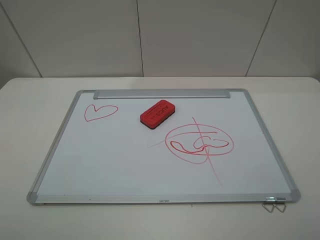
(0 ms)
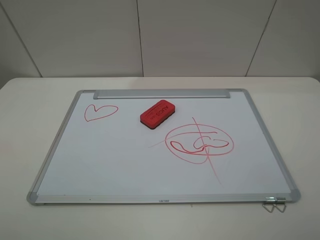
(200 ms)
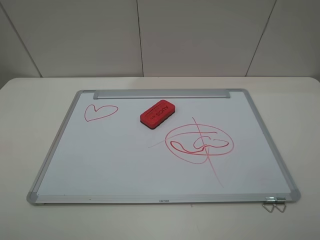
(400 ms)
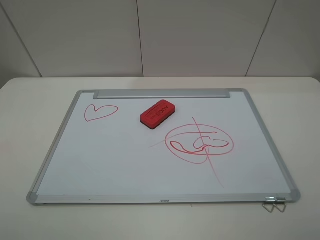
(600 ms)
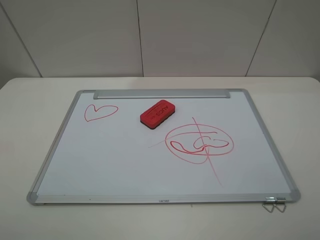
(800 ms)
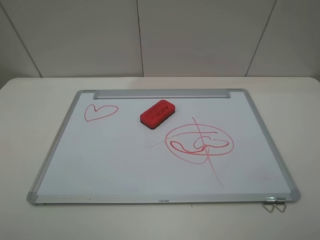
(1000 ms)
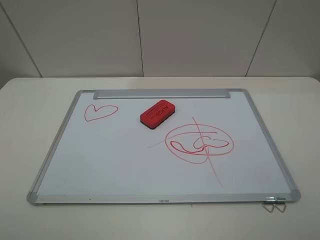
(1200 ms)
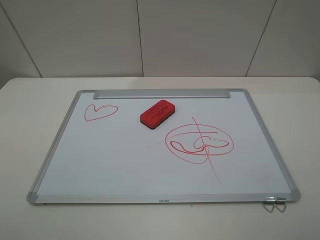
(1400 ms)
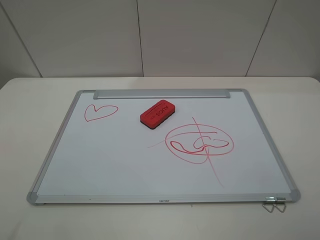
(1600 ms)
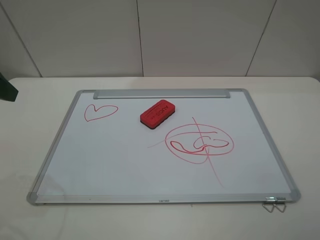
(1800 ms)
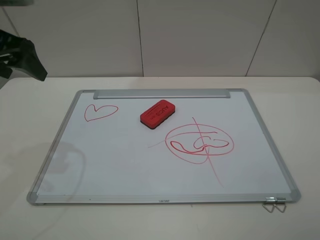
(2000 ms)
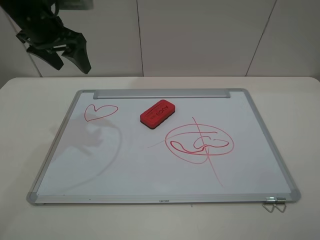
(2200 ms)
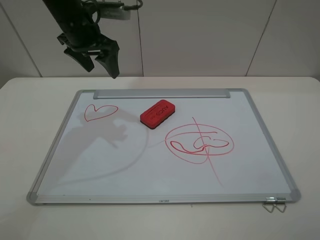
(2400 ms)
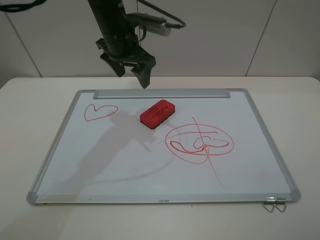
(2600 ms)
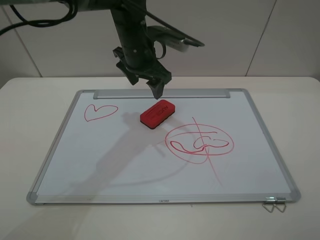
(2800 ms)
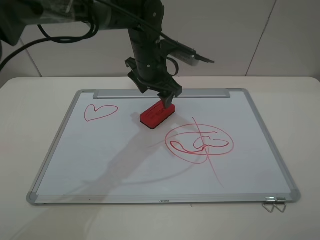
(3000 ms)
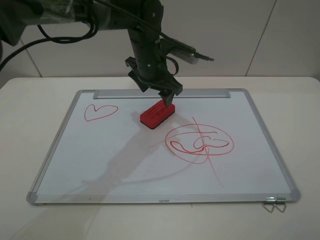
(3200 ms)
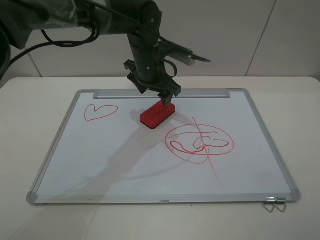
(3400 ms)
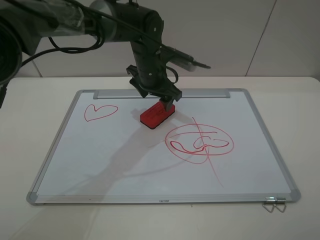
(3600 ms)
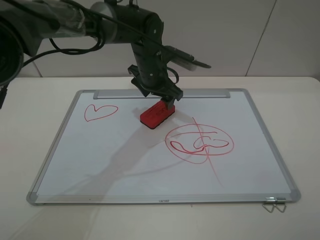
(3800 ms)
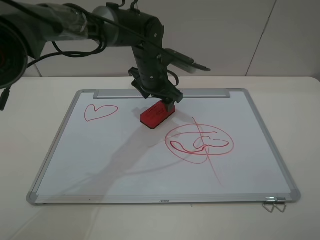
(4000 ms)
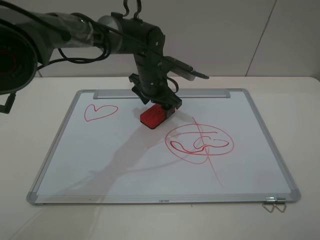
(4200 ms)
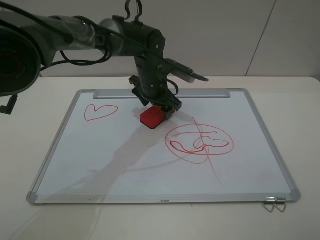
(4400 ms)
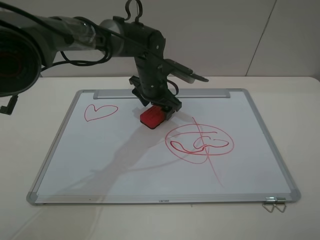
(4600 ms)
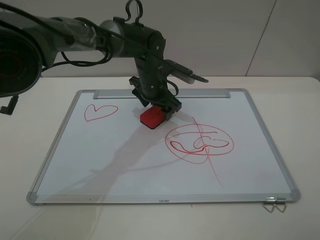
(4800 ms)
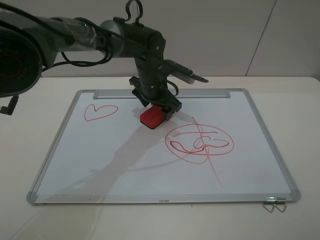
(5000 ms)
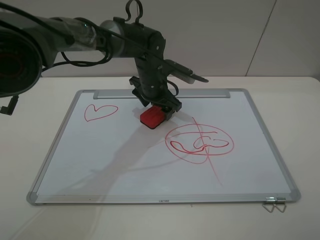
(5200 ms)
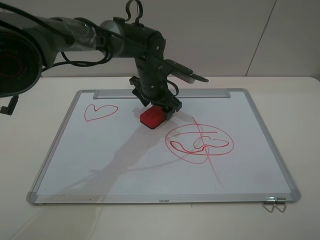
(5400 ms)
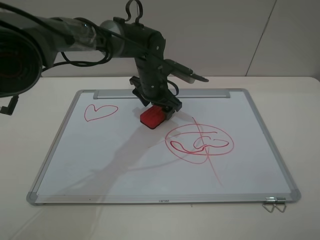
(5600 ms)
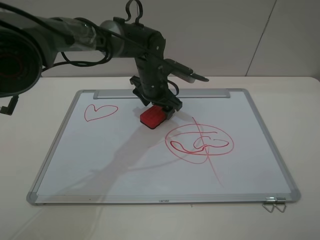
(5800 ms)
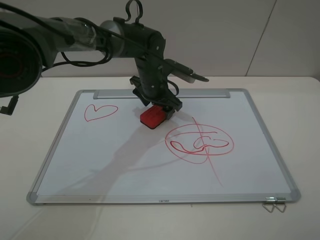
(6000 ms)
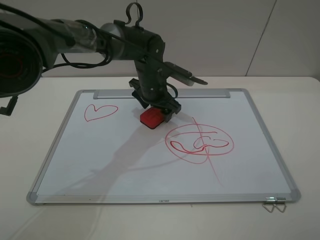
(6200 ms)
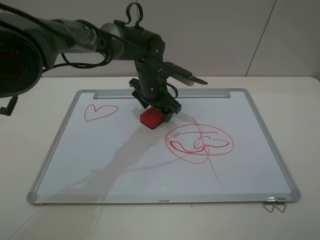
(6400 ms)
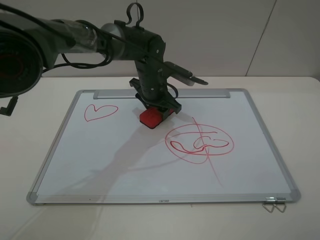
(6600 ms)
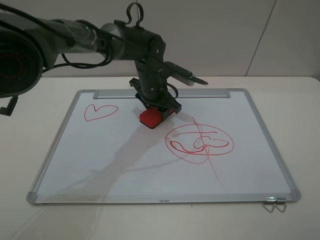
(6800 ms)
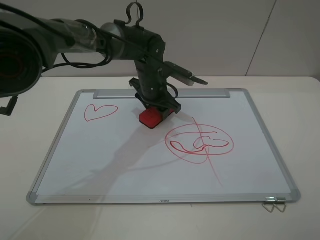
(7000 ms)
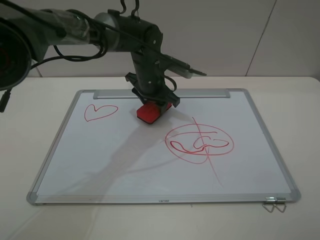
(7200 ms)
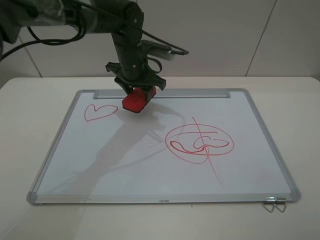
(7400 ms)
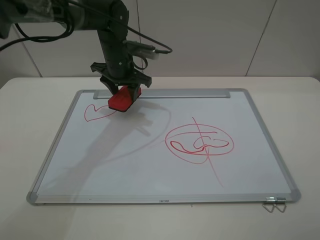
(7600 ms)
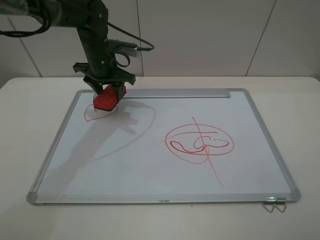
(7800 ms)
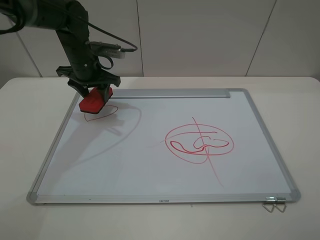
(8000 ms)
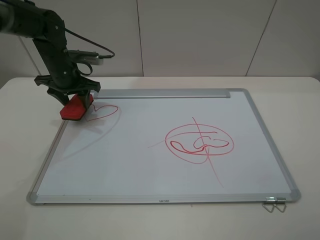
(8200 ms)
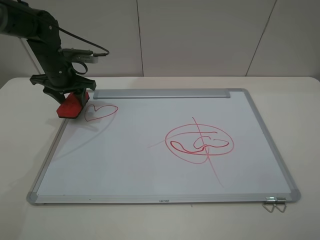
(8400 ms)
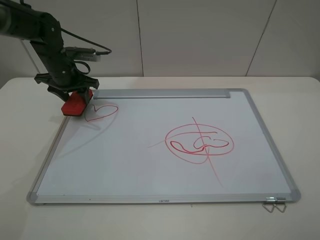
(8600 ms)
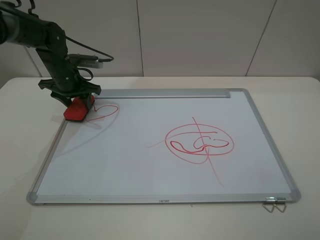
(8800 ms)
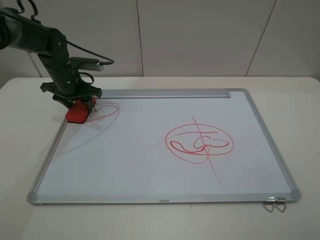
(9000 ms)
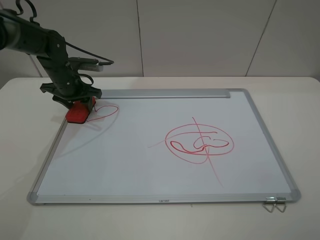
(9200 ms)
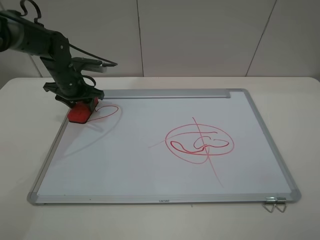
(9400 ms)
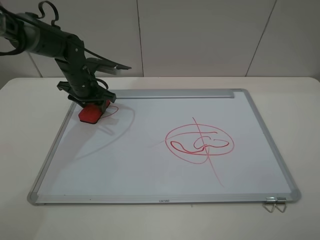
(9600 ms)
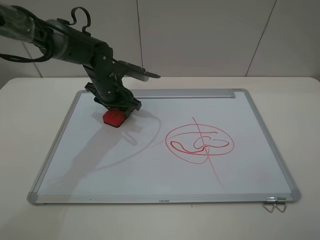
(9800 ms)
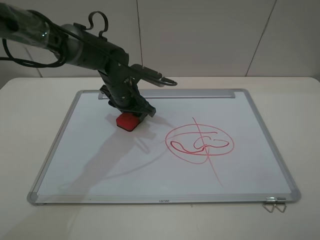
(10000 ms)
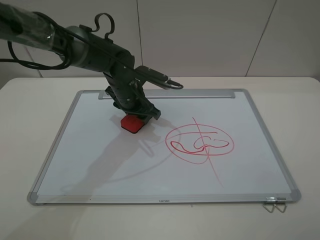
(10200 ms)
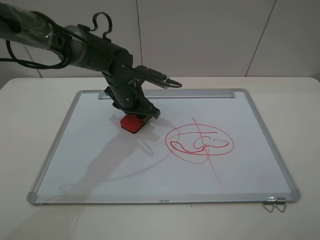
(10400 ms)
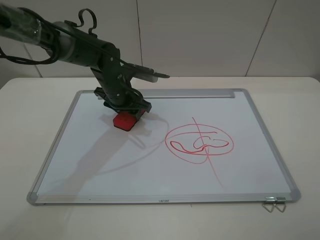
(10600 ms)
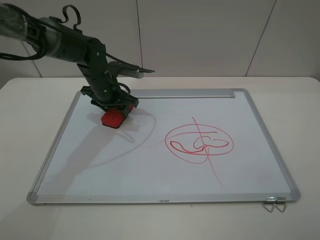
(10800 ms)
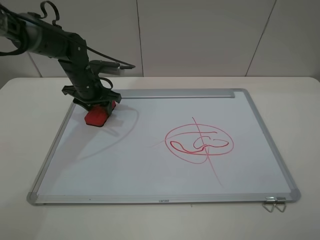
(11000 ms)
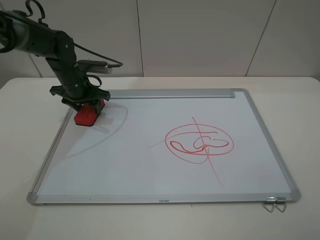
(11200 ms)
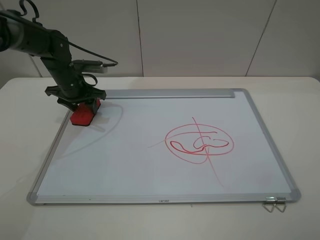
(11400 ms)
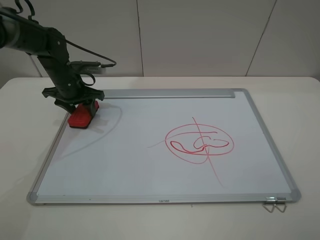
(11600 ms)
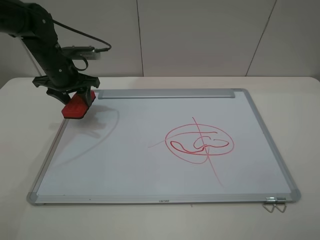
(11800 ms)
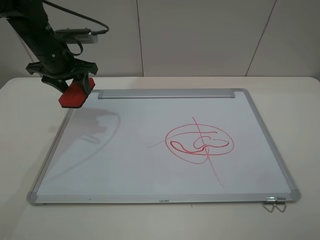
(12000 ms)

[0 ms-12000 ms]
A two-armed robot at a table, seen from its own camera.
Step, 0 ms to 6600 ms: Grasp the eraser with the left gripper.
Step, 6800 ms to 11600 ms: Grasp the eraser and wipe the blackboard with the left gripper.
1600 ms to 3000 ms: The left gripper heads to the right, forward and downward, covering roughly 40 cm.
3000 ms to 4400 ms: The left gripper heads downward, covering approximately 5 cm.
4400 ms to 6000 ms: Both grippers stay about where they are.
6000 ms to 7600 ms: The left gripper heads to the left, covering approximately 10 cm, and closes its fingers.
7600 ms to 9000 ms: The left gripper goes roughly 15 cm to the left.
9000 ms to 10400 ms: The left gripper shifts some 15 cm to the right.
10400 ms to 12000 ms: The left gripper moves to the left and upward, approximately 20 cm.

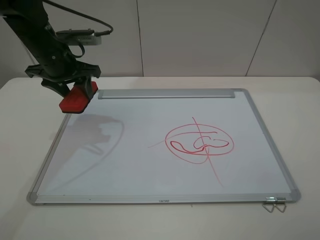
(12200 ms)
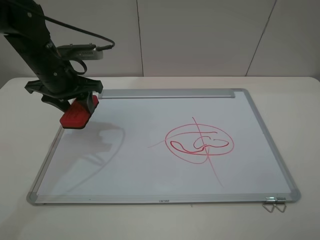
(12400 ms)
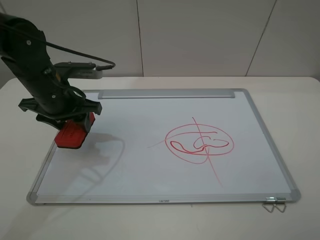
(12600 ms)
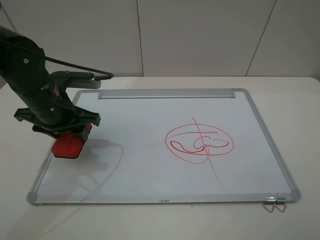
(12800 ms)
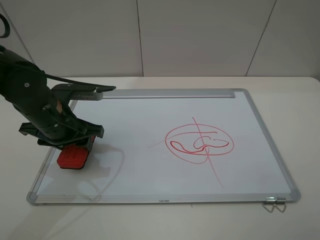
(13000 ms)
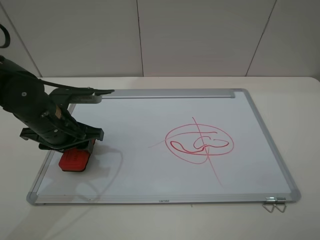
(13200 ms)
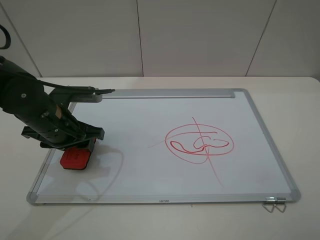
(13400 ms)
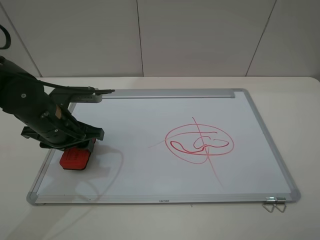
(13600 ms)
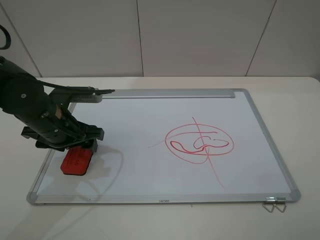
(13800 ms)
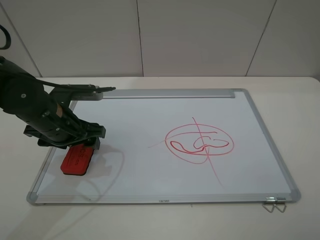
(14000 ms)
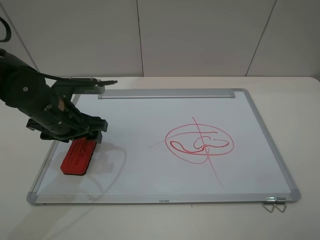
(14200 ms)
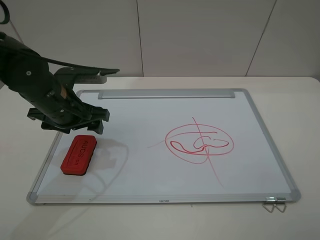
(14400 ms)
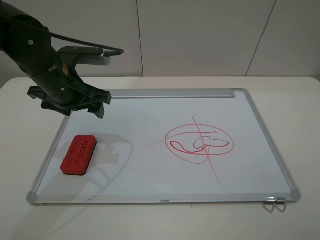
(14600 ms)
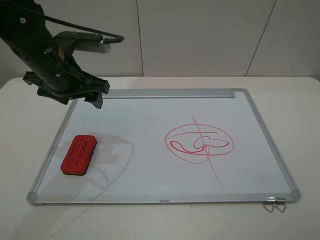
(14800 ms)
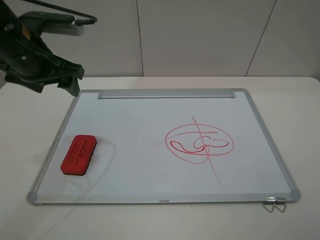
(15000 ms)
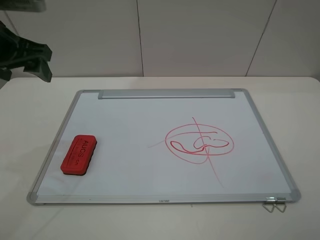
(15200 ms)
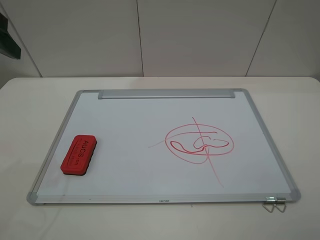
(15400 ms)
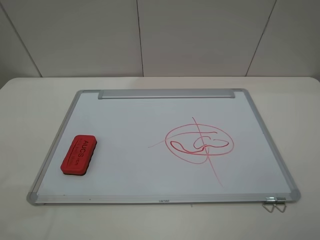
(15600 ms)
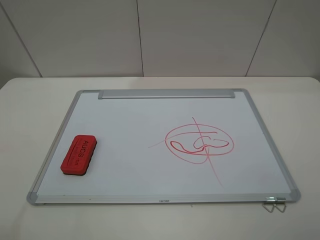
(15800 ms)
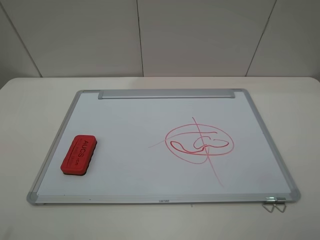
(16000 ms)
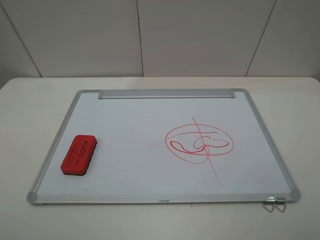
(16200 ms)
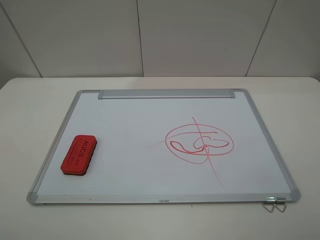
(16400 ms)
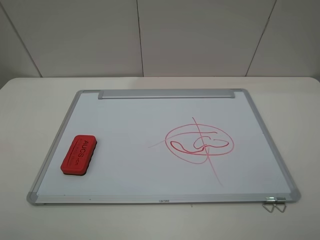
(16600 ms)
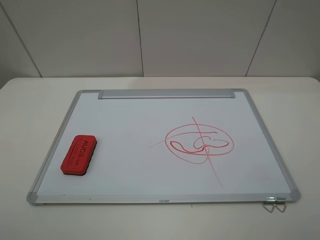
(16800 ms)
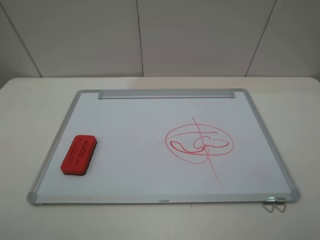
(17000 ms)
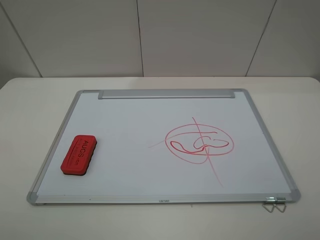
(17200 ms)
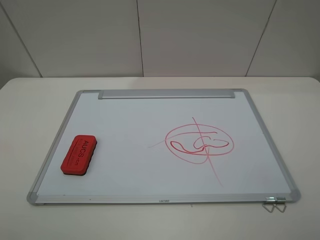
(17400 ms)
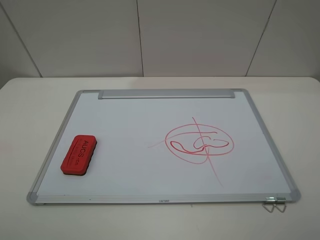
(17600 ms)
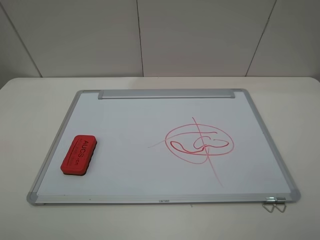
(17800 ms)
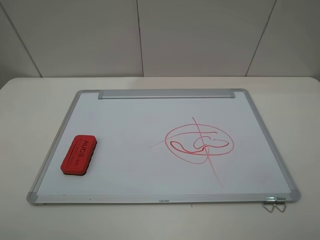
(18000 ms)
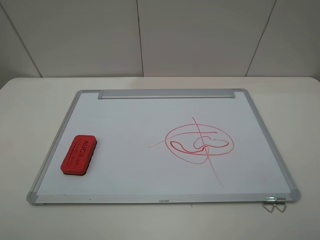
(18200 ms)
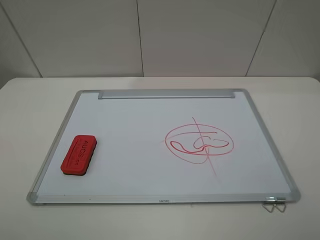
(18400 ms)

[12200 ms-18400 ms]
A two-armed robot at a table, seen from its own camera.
Step, 12200 ms to 14200 ms: Place the eraser with the left gripper.
12200 ms to 13800 ms: The left gripper moves backward and downward, some 15 cm, and opens.
13800 ms to 15400 ms: The left gripper travels upward and to the left by some 25 cm.
15400 ms to 16800 ms: The left gripper is displaced backward by roughly 20 cm.

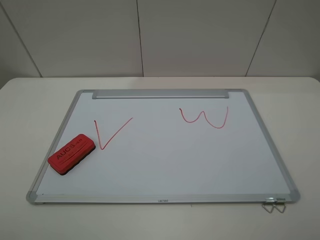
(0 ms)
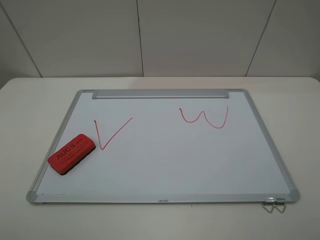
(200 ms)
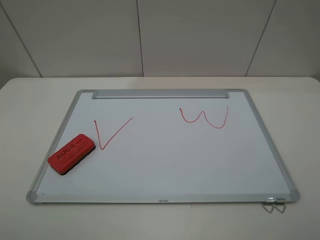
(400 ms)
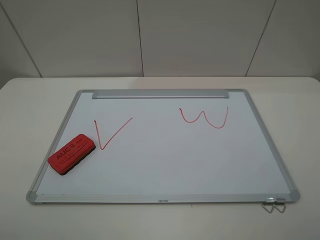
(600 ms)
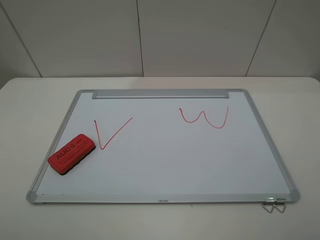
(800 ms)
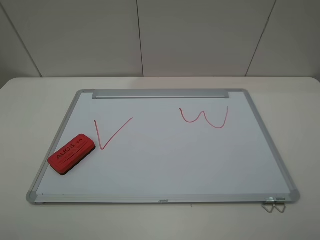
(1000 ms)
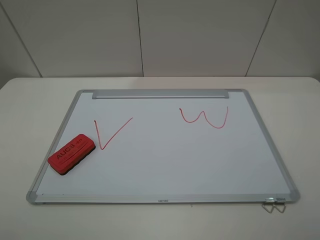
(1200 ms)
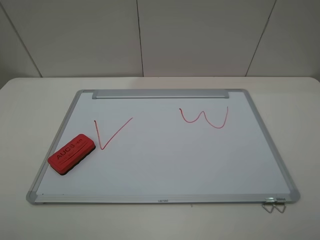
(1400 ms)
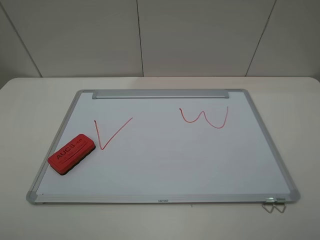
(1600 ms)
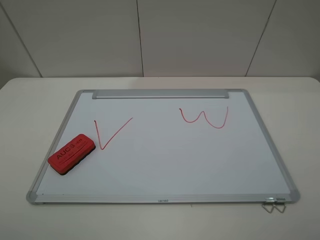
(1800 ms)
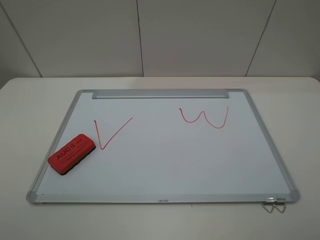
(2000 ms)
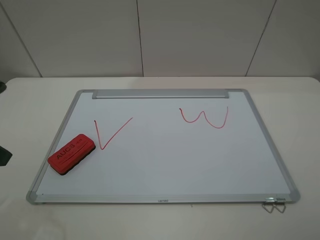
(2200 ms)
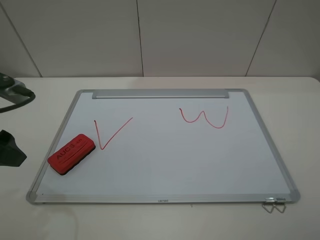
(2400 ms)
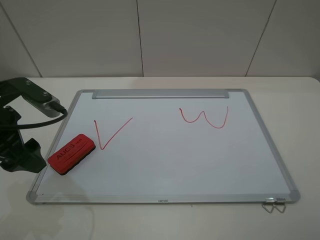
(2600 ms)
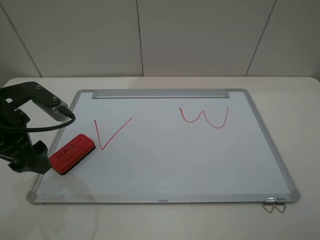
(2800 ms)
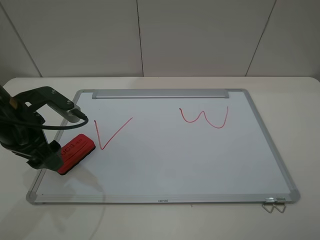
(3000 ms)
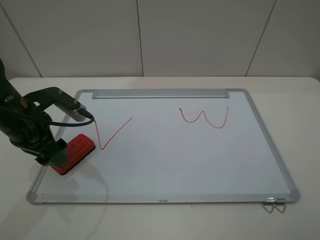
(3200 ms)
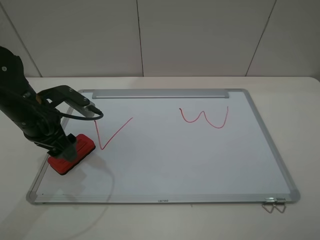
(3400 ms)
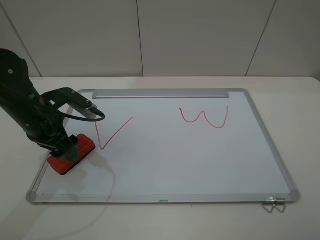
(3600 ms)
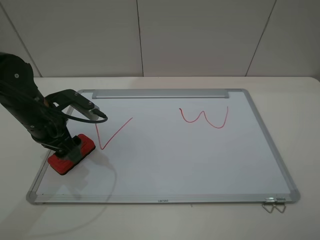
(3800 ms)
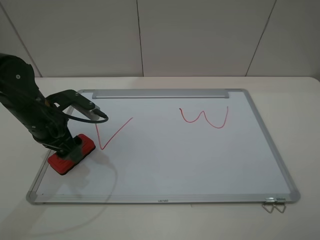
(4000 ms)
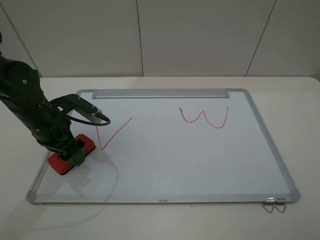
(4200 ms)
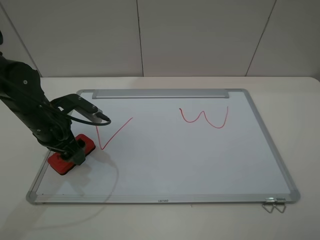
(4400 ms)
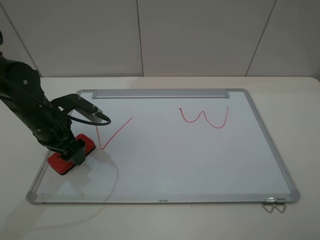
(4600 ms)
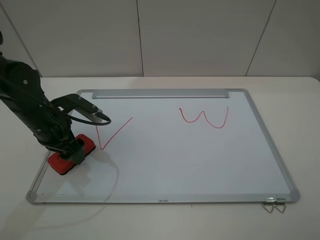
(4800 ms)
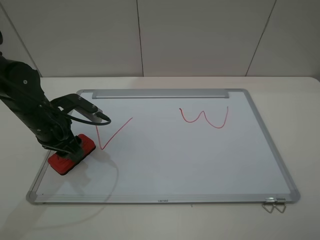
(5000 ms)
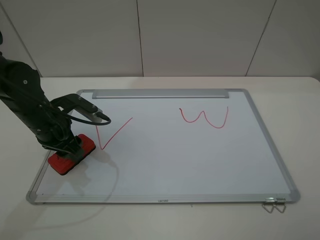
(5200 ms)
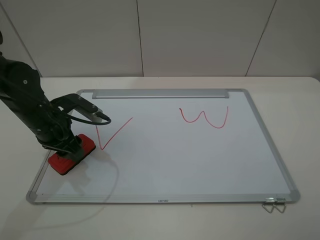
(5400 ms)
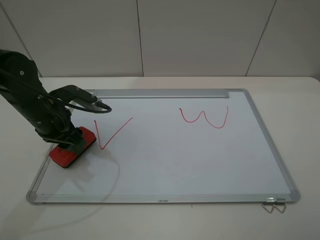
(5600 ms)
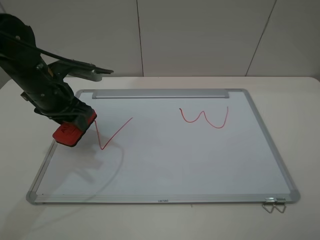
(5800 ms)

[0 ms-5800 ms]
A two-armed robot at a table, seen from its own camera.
Step, 0 ms to 5000 ms: Grasp the eraser with the left gripper.
0 ms to 1400 ms: Neither gripper changes place.
1400 ms to 2800 ms: The left gripper travels forward by some 20 cm.
2800 ms to 4400 ms: The left gripper is displaced downward and forward by roughly 10 cm.
4400 ms to 5800 ms: The left gripper moves upward, about 5 cm, and closes its fingers.
